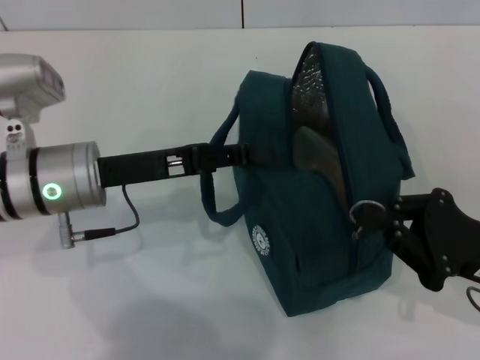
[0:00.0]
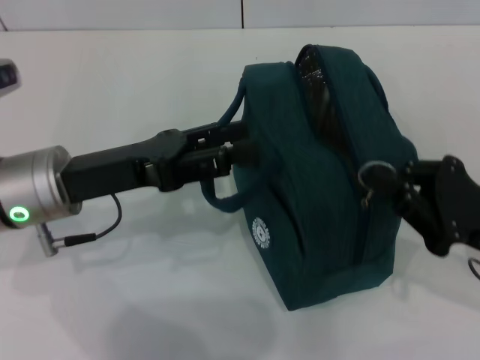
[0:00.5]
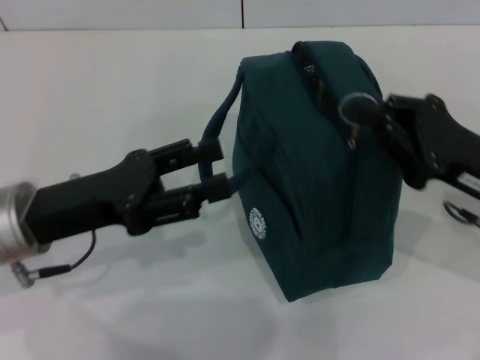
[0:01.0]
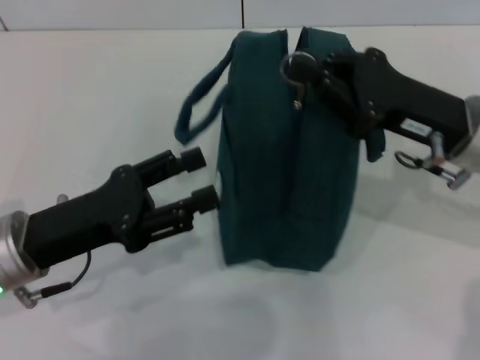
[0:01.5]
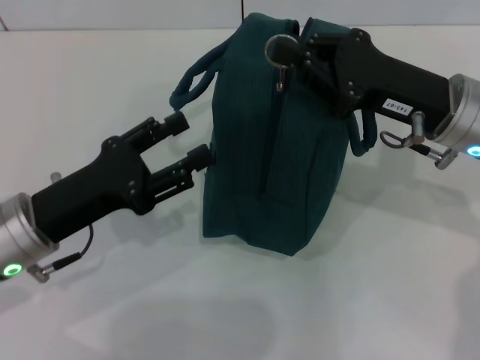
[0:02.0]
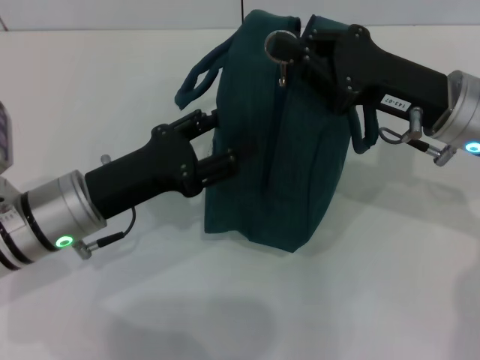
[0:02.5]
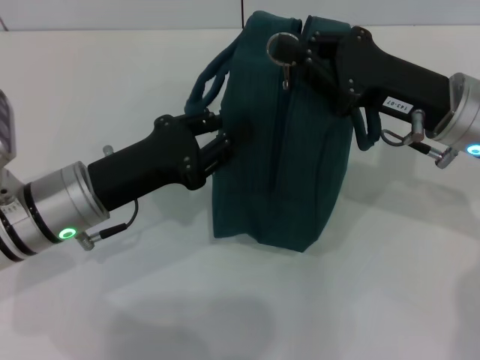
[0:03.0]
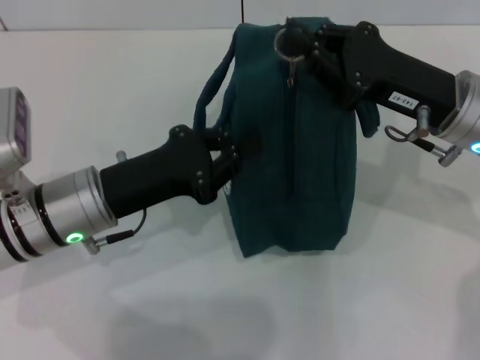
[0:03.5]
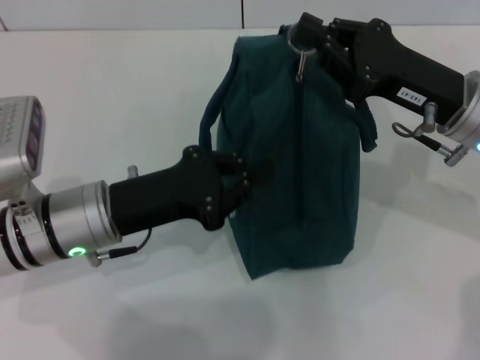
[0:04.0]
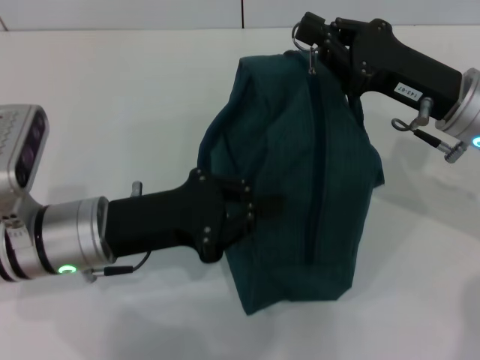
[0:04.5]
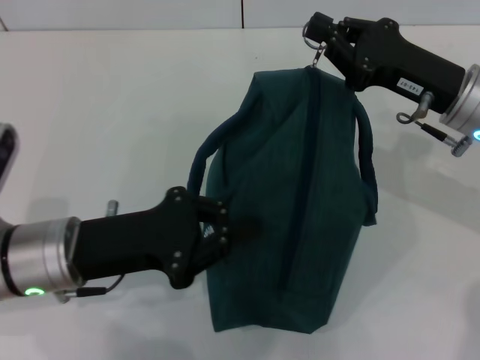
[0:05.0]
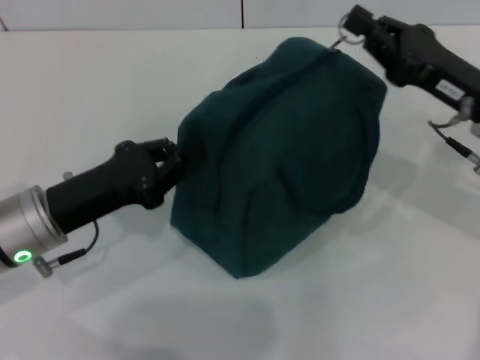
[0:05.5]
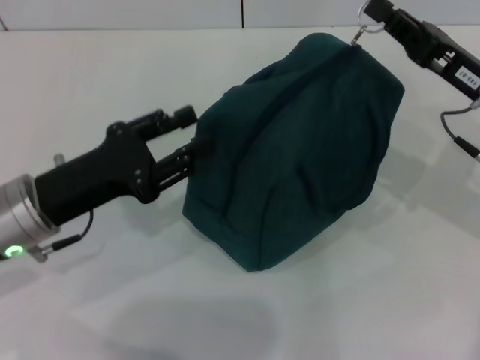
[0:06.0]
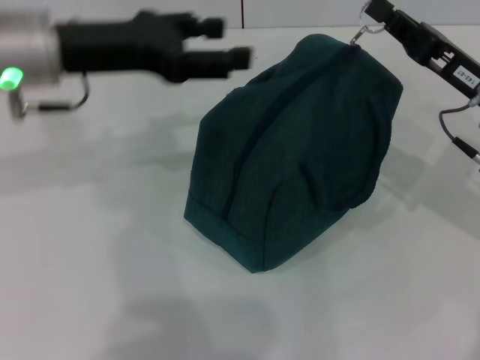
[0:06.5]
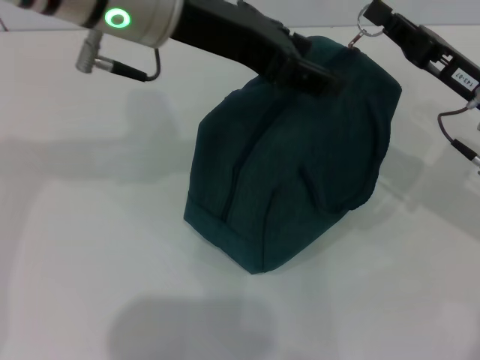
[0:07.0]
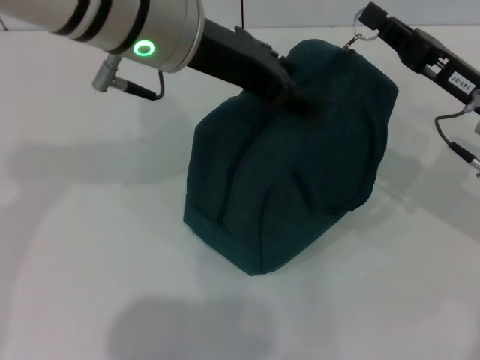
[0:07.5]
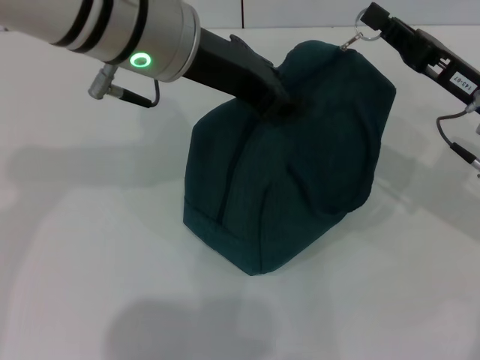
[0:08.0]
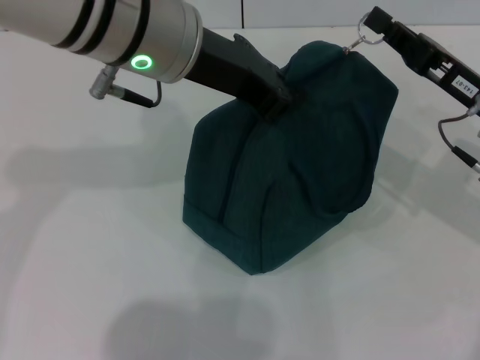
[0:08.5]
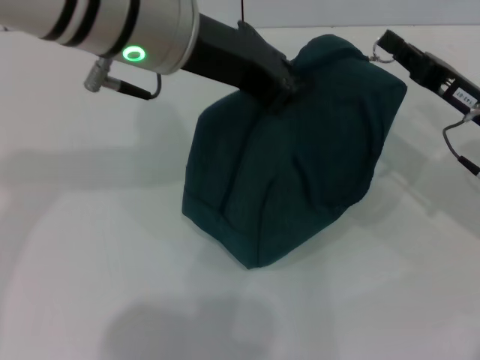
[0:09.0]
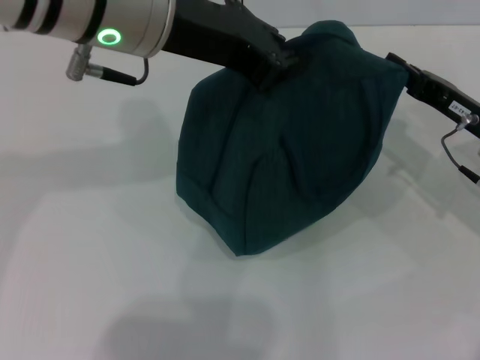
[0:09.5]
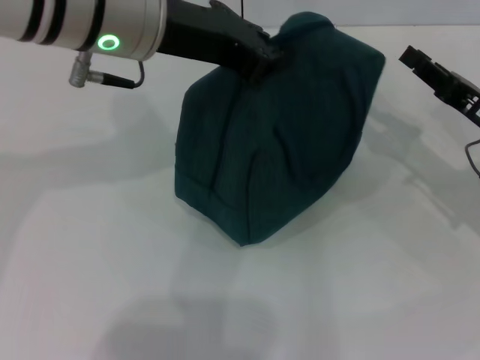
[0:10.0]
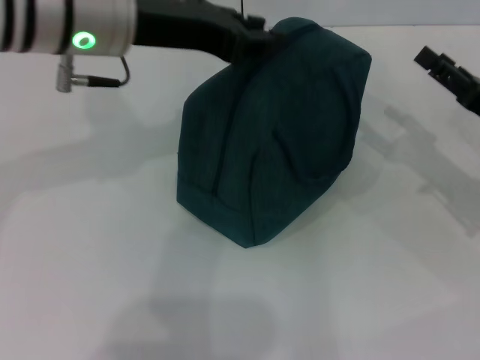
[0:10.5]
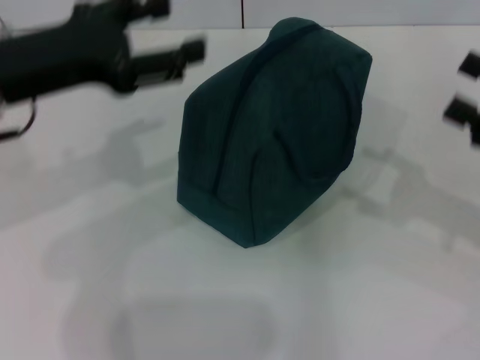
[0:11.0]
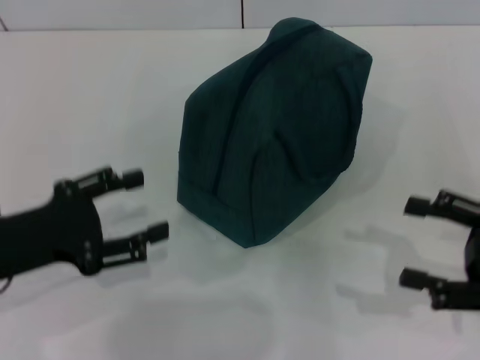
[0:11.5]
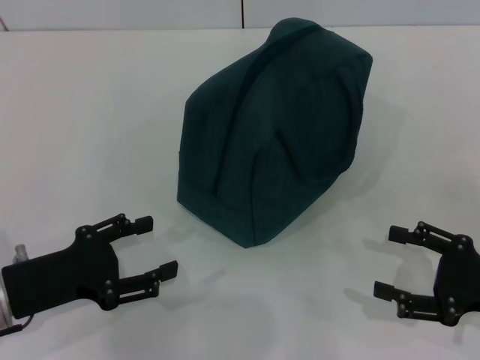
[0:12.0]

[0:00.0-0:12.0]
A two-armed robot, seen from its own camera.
Step, 0:00.5 to 0:09.5: Zip up the lunch bag with your right hand.
Step, 0:10.0 to 0:10.5: Hold the lunch bag with your left hand.
0:00.0 to 0:02.0: The left gripper travels backward by some 5 cm, and opens its fingers, while the right gripper travels forward, to the left and upward by approximately 15 cm.
0:02.0 to 0:04.0: The left gripper moves some 5 cm, and closes its fingers.
0:04.0 to 0:06.0: The left gripper shifts by some 5 cm, and opens.
0:06.0 to 0:08.0: The left gripper shifts roughly 25 cm upward, to the right and forward, and opens, then closes once more.
0:08.0 to 0:10.0: The left gripper closes. Meanwhile the right gripper moves roughly 5 cm.
0:10.0 to 0:12.0: The right gripper heads backward, covering about 10 cm, and opens; the left gripper is displaced downward, to the left and backward by some 30 cm, and opens.

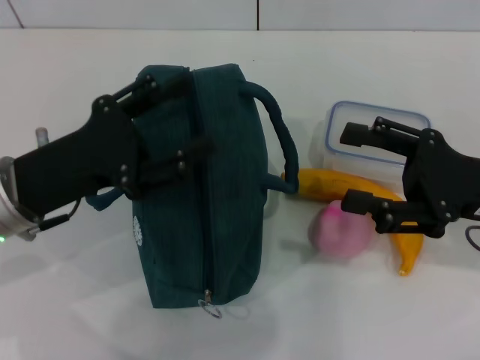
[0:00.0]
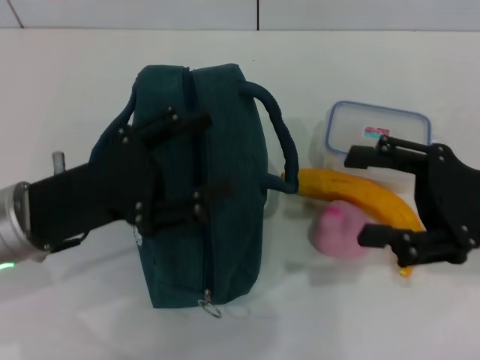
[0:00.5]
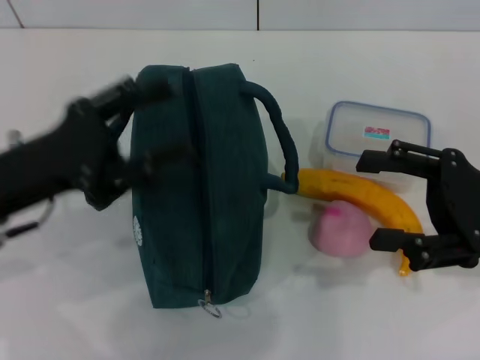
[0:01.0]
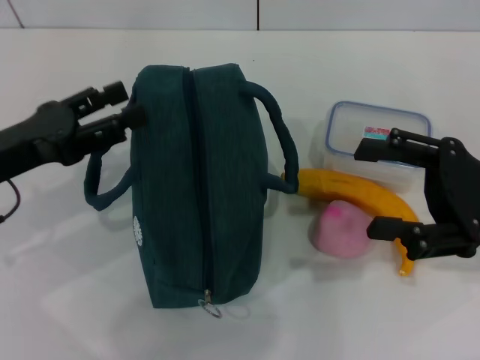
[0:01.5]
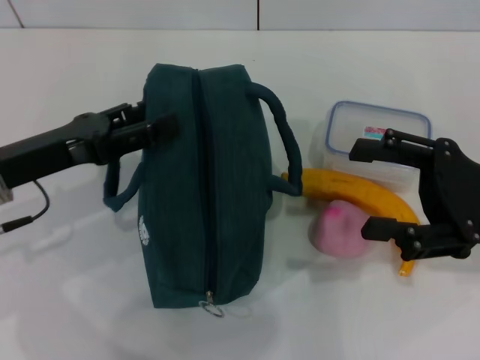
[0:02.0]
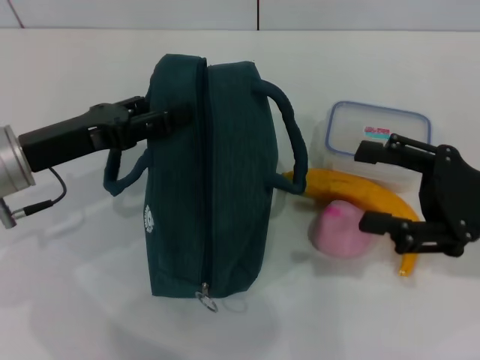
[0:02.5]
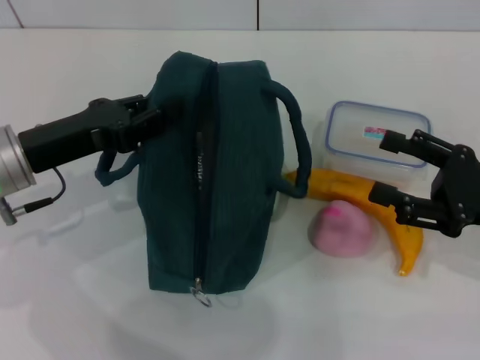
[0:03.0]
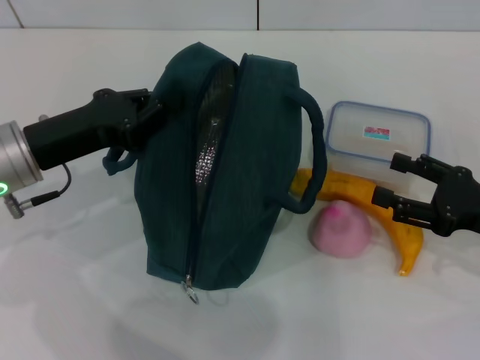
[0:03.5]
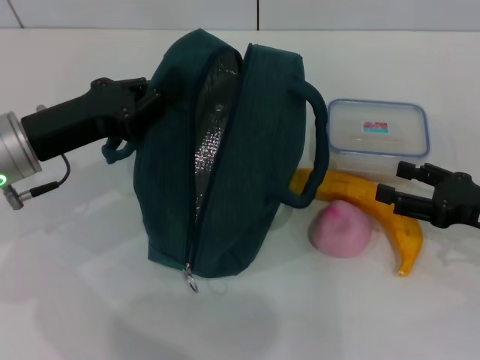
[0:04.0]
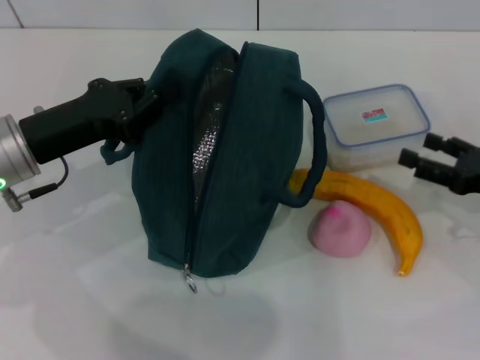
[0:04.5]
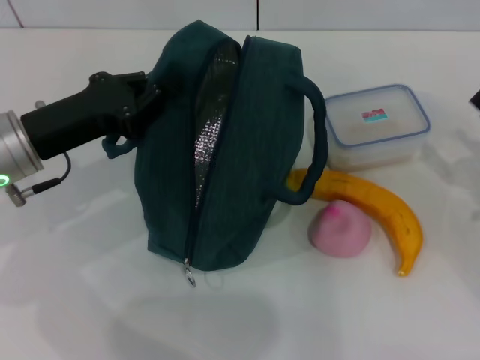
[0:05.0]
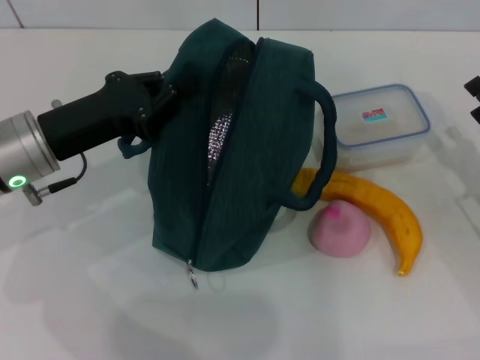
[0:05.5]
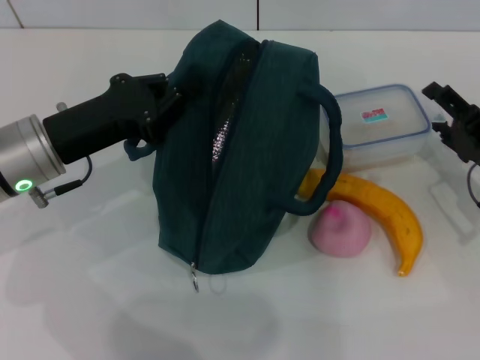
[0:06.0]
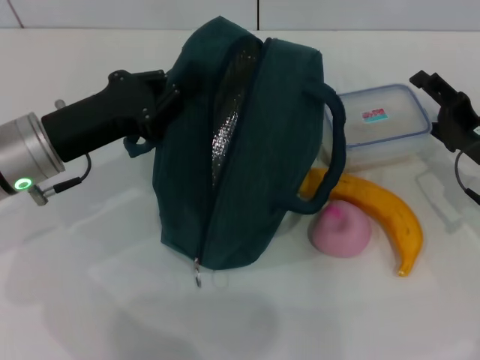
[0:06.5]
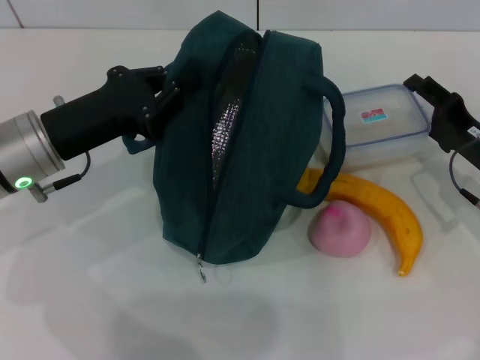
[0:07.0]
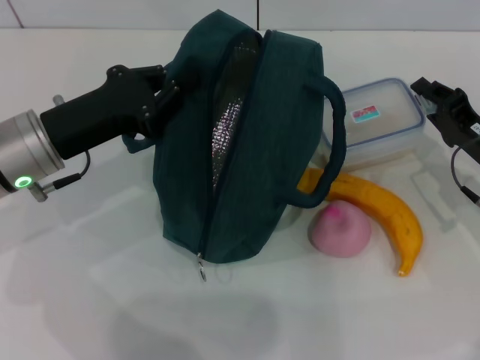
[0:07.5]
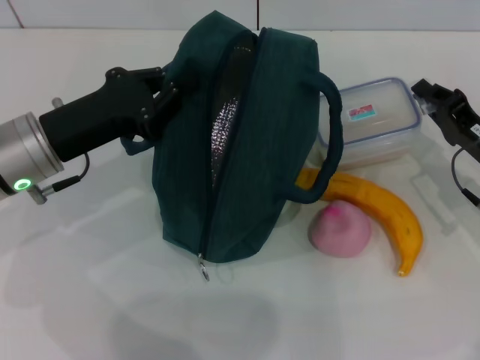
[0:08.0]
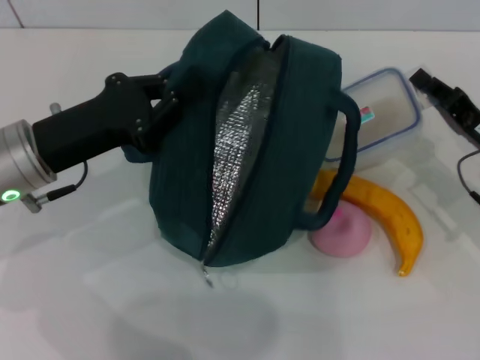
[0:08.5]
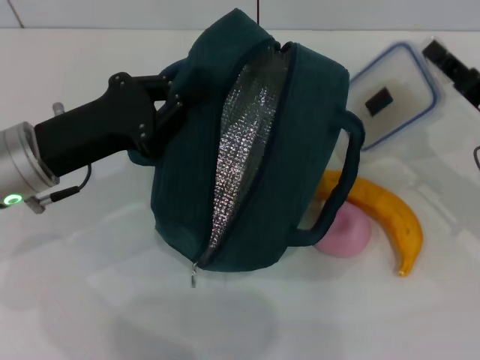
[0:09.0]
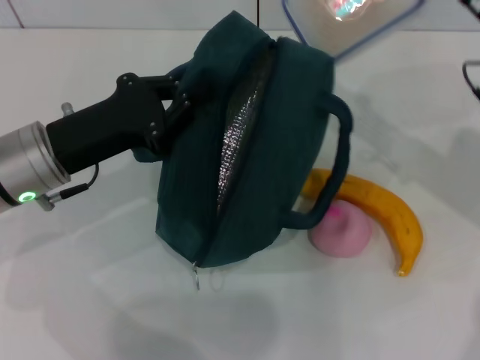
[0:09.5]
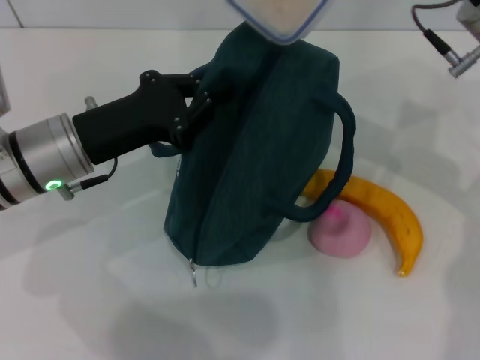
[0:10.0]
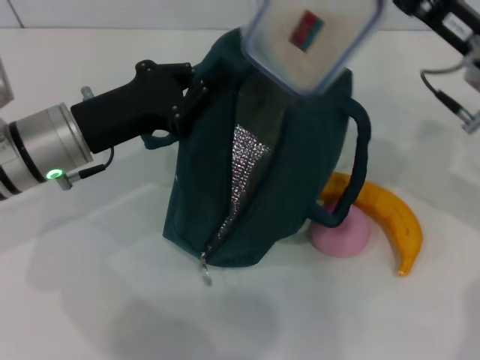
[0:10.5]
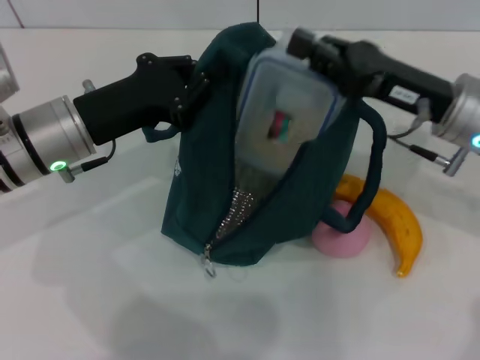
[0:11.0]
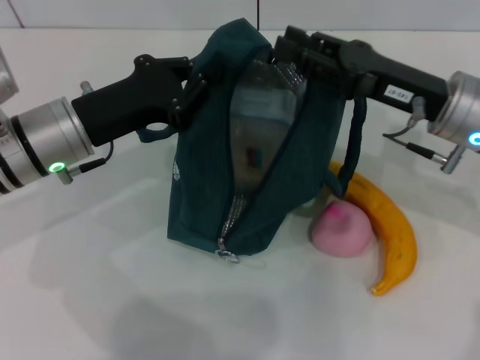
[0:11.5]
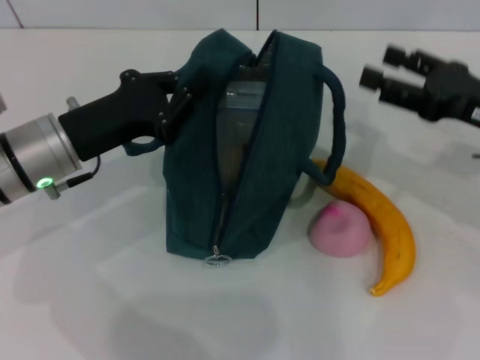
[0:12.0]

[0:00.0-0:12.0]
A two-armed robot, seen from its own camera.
Step, 0:00.0 to 0:03.5: Hold the lunch bag with your left hand.
Step, 0:04.0 to 0:07.5: Pick up the lunch box with your right hand.
Step, 0:08.0 to 0:11.5: Place the lunch box into the lunch bag with your right hand.
0:02.0 to 0:04.0: The left gripper closes its fingers; the right gripper is displaced downward by some 10 cm.
0:06.0 to 0:08.0: The right gripper closes its fingers.
0:08.0 to 0:10.0: The right gripper travels upward and to the left by some 15 cm.
0:10.0 to 0:12.0: The right gripper is displaced to the right, downward and backward by some 10 cm, and opens.

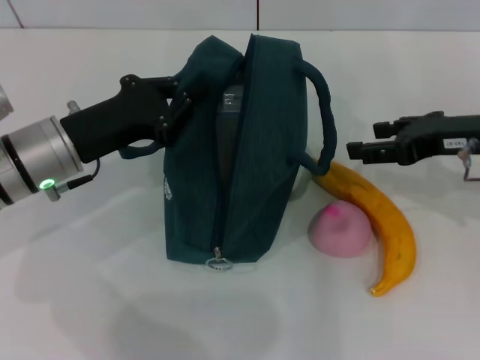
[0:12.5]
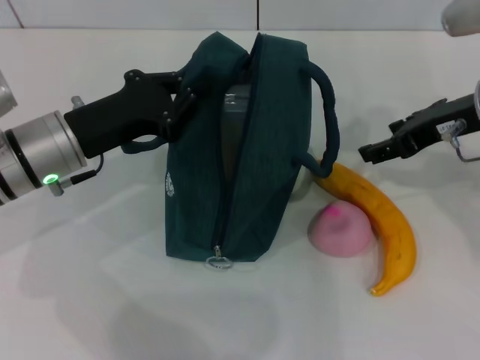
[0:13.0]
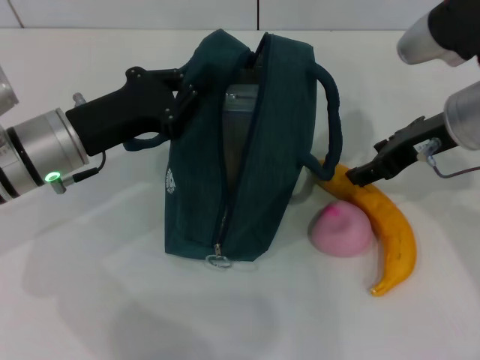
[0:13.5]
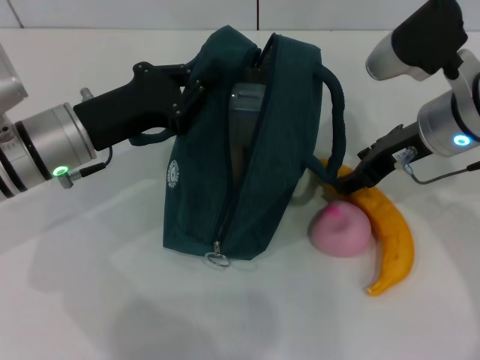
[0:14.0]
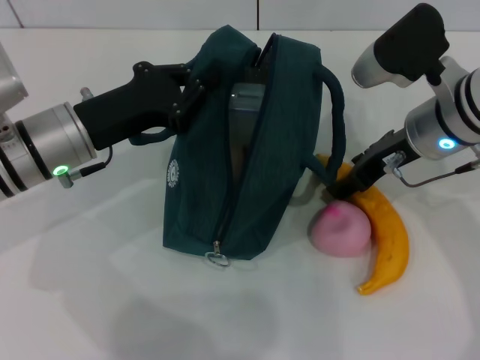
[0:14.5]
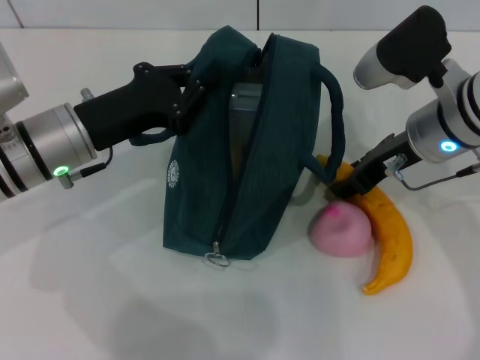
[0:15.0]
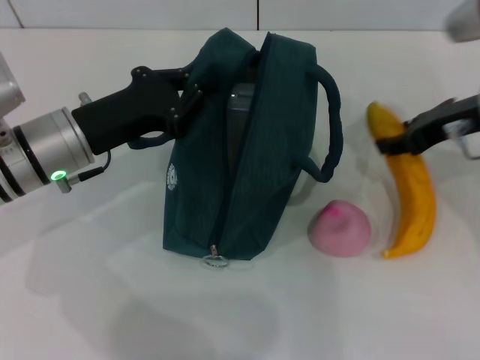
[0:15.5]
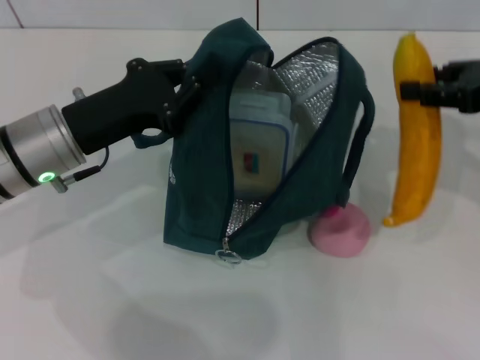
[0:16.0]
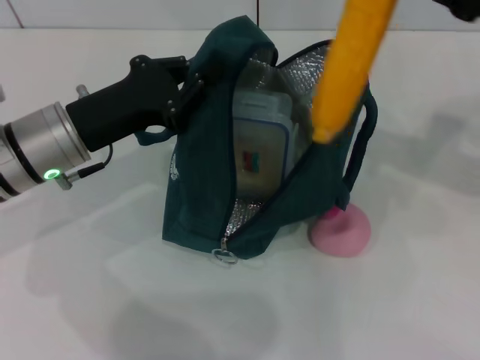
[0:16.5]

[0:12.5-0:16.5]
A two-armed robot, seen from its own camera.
Step, 0:12.5 to 0:15.0: Take the banana with your right hand.
0:12.5 to 0:14.5: The right gripper goes some 10 cm to the left.
0:14.5 to 0:16.5: The right gripper goes about 10 cm to the right and upward.
